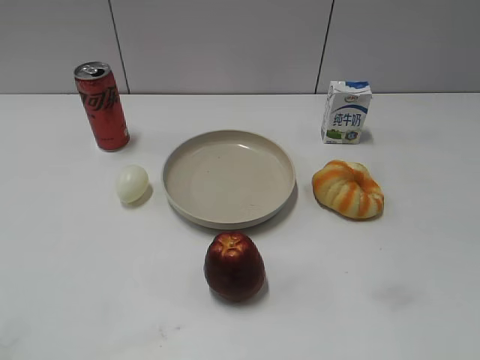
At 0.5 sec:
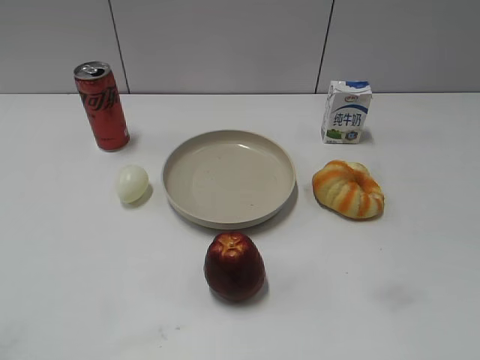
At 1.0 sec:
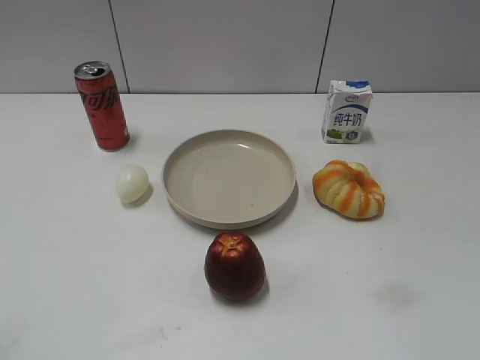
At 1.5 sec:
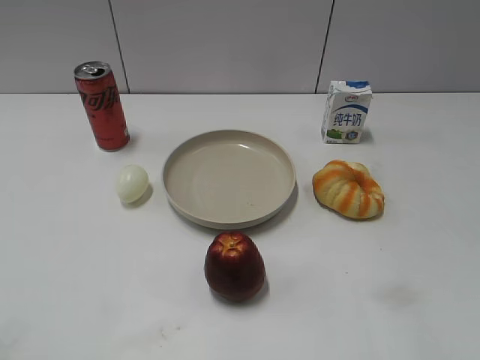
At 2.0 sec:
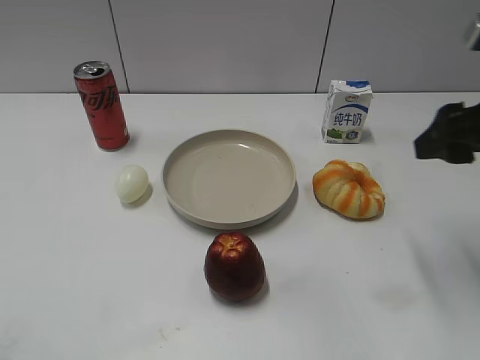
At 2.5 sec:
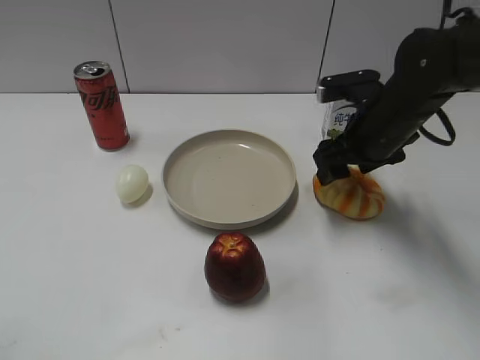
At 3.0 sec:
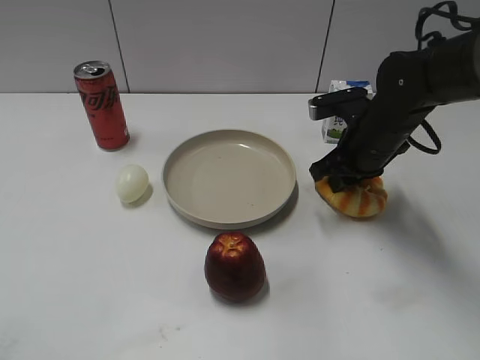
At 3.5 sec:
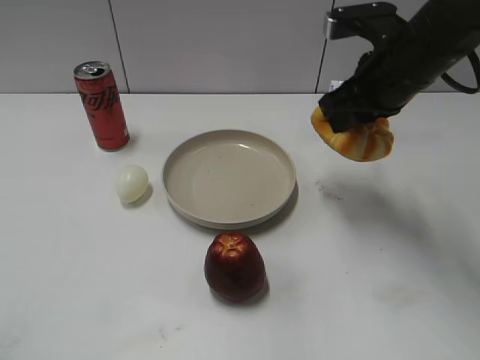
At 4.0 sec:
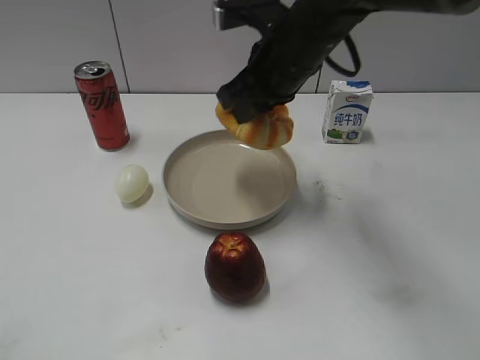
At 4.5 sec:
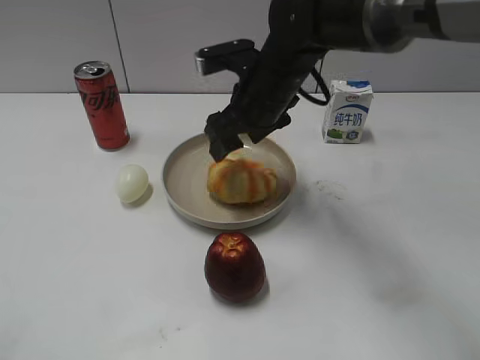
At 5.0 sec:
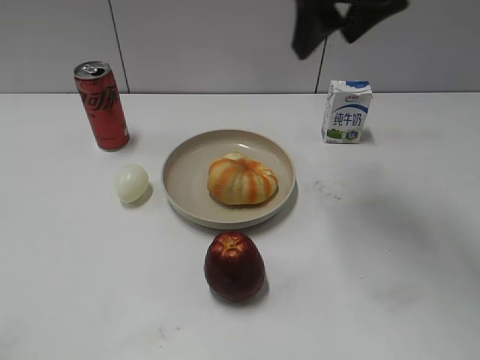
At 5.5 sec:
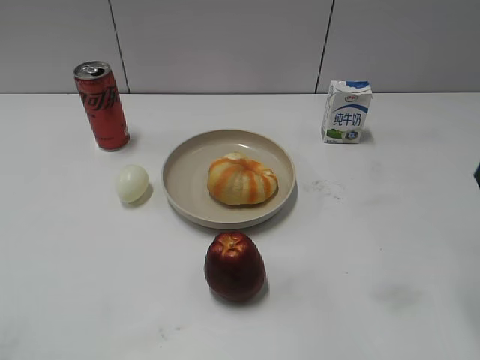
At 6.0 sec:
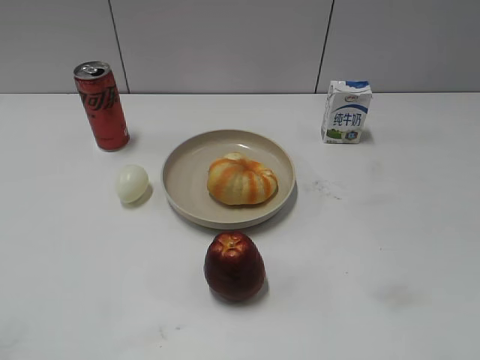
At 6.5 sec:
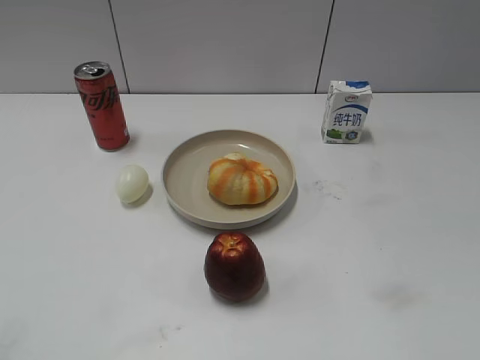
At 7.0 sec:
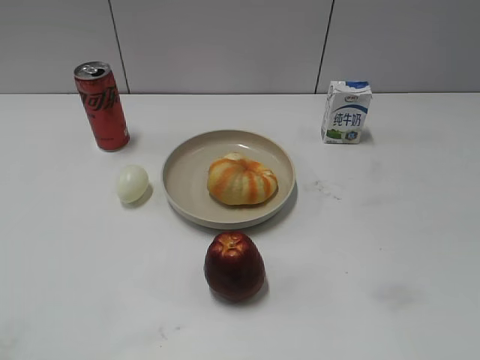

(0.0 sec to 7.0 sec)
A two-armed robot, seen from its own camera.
Step, 1.5 sec - 3.0 sec: Grasp the round bread with right gripper.
Step, 3.5 sec - 4.5 sec: Place the round bread on the plate with right gripper.
2.0 sec - 3.5 sec: The right gripper shifts about 10 cm to the left and forward, moves approximately 10 cm downward and comes back, and closes up.
3.5 sec - 5.0 sec: The right gripper travels upward and to the right by approximately 10 cm, and opens its fingers.
5.0 sec - 7.0 sec: The right gripper is displaced backward by roughly 35 cm.

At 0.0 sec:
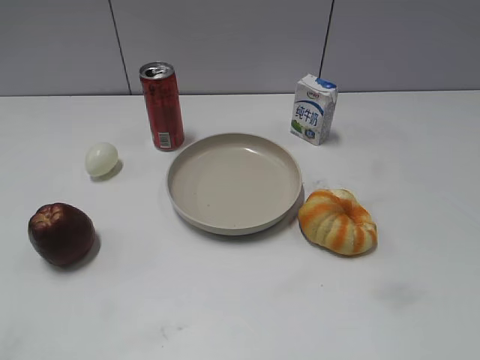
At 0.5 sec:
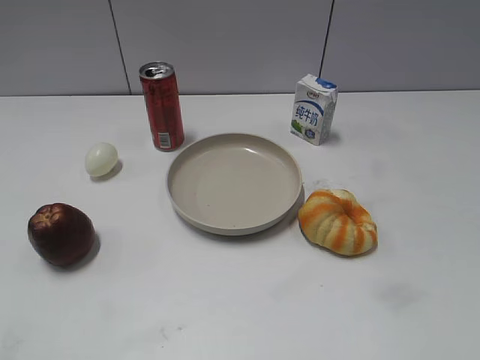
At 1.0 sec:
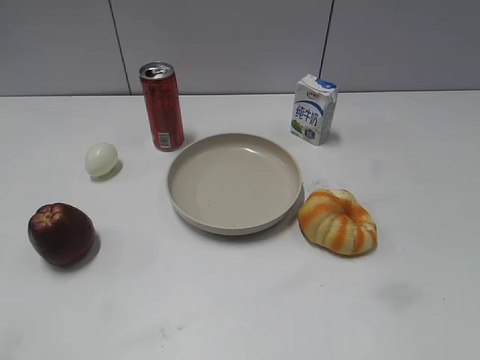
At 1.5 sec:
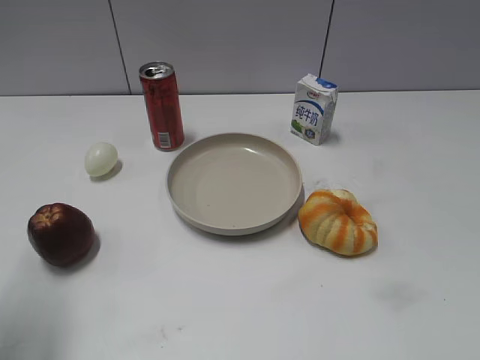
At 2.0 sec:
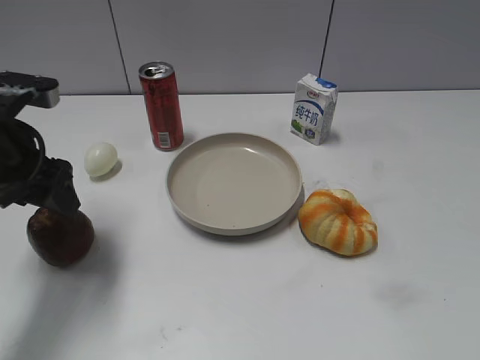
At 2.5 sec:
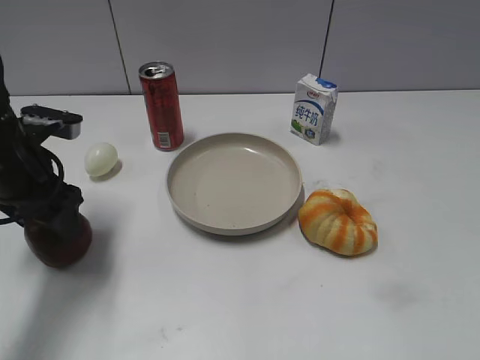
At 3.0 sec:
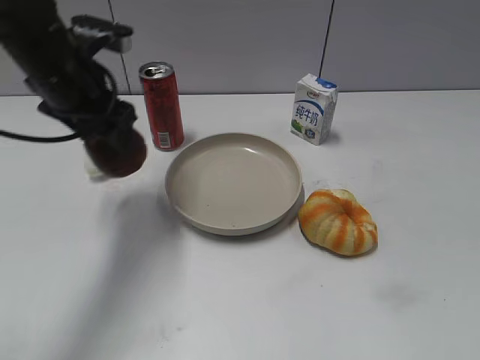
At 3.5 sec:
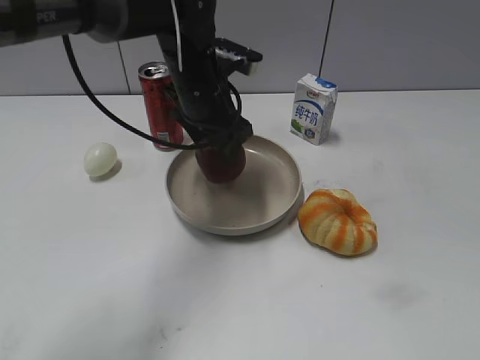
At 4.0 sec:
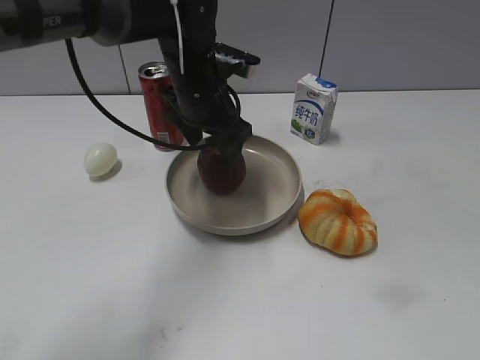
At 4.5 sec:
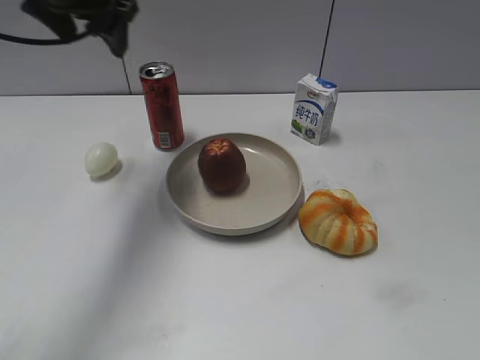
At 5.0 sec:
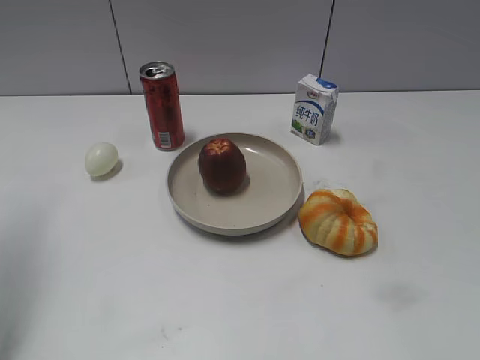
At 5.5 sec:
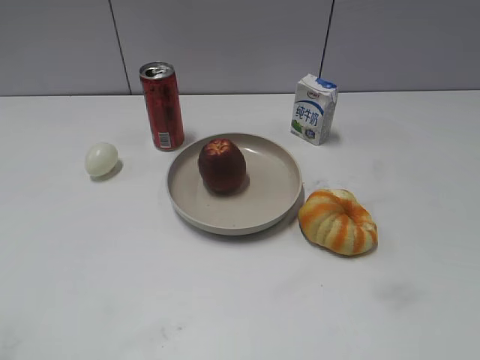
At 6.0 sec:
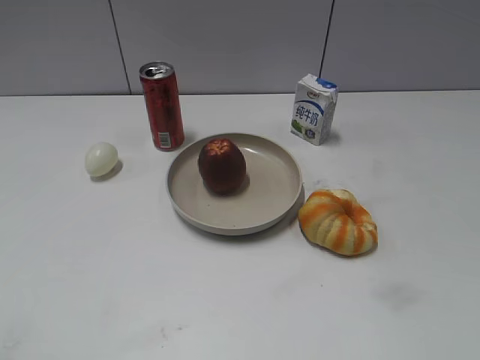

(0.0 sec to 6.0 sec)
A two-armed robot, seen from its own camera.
Step, 2.0 sec - 2.5 sec: Grasp the apple with left gripper.
Step, 3.0 sec - 4.0 sec: Place the apple on the plate with left gripper.
2.0 sec - 4.0 sec: The left gripper travels to the right and forward by roughly 20 cm, and opens up.
4.0 sec - 6.0 sec: The left gripper travels backward and to the left by roughly 50 cm, and closes up.

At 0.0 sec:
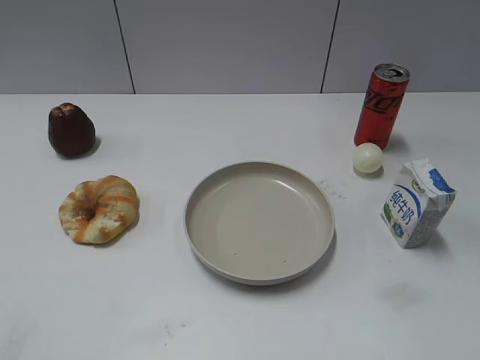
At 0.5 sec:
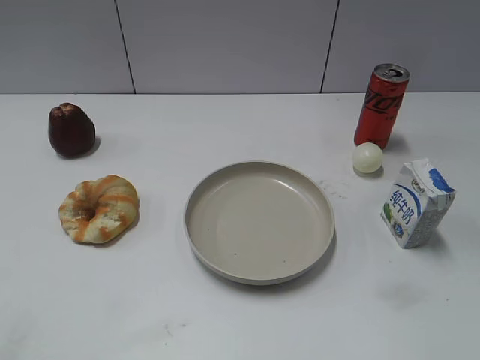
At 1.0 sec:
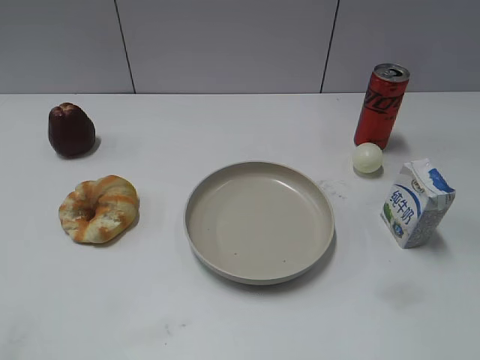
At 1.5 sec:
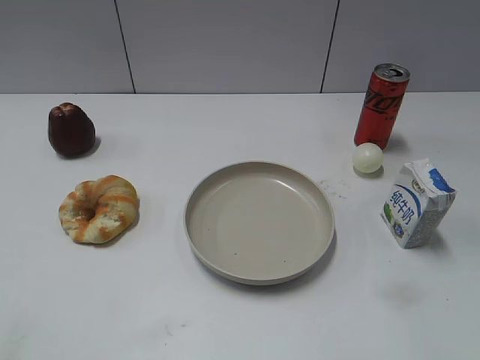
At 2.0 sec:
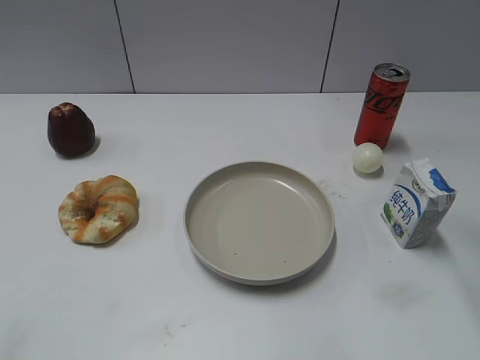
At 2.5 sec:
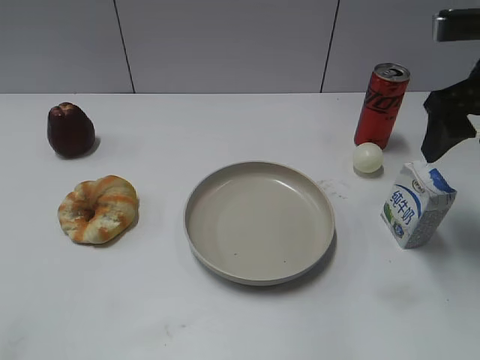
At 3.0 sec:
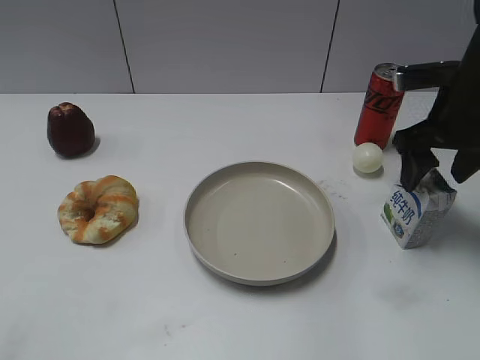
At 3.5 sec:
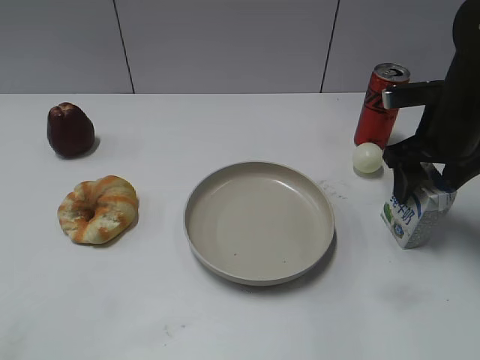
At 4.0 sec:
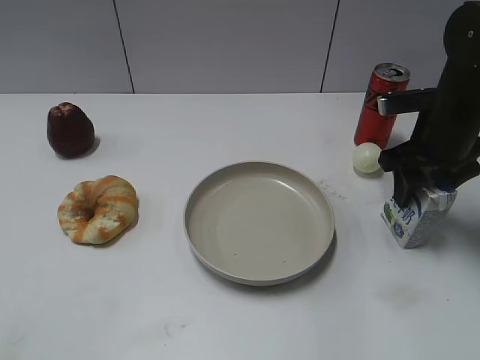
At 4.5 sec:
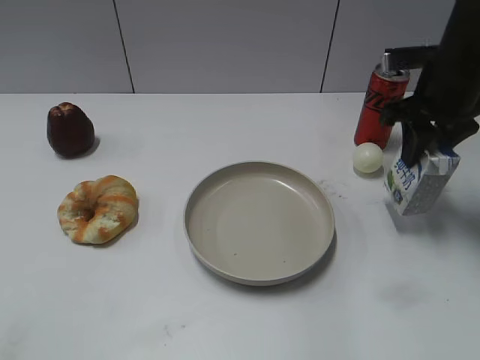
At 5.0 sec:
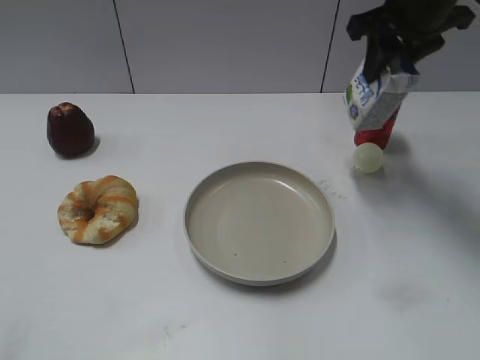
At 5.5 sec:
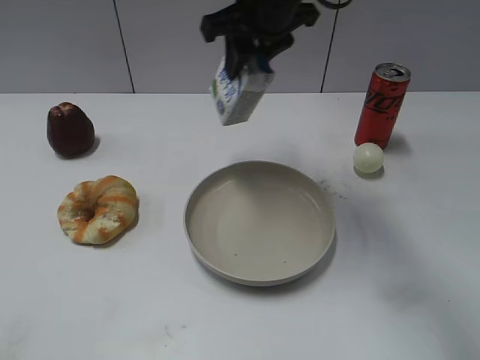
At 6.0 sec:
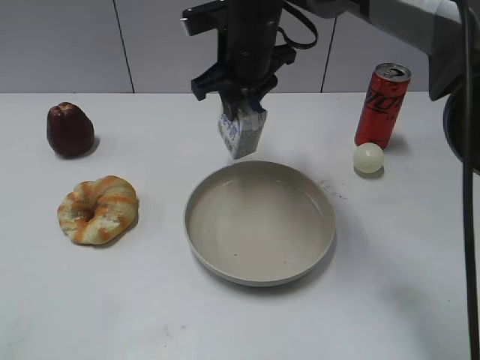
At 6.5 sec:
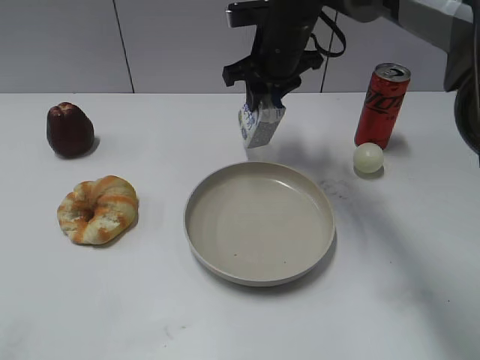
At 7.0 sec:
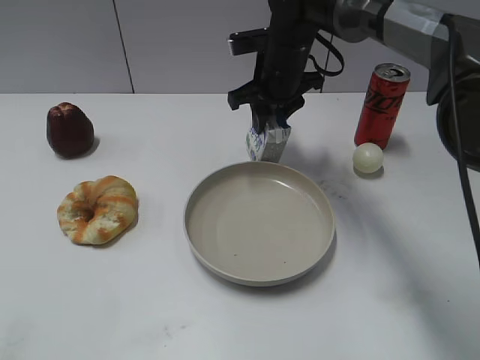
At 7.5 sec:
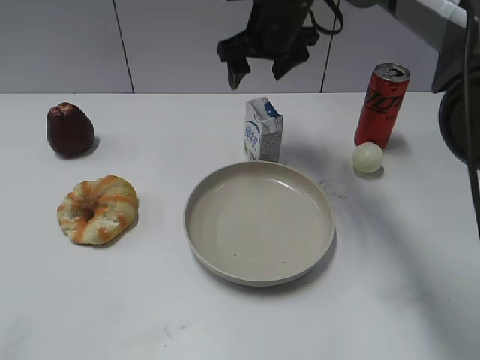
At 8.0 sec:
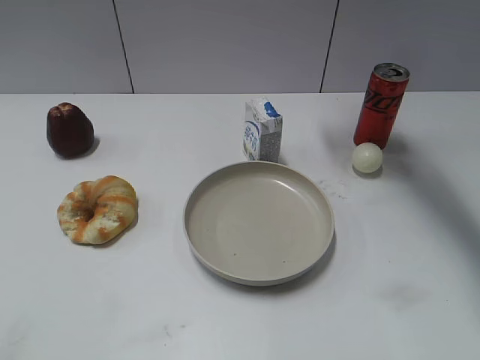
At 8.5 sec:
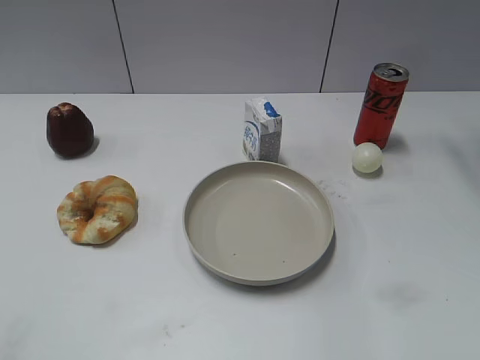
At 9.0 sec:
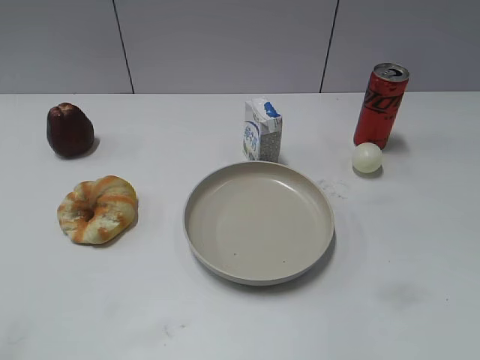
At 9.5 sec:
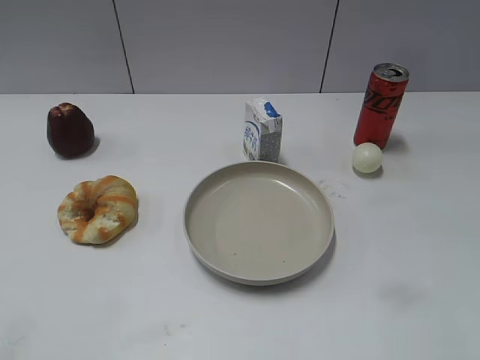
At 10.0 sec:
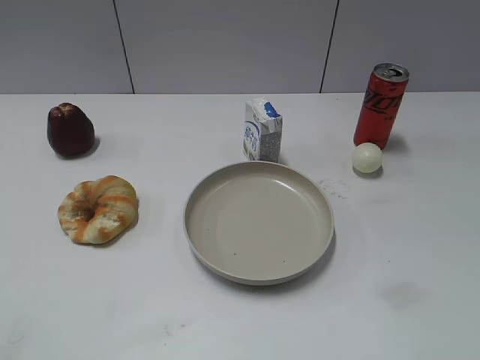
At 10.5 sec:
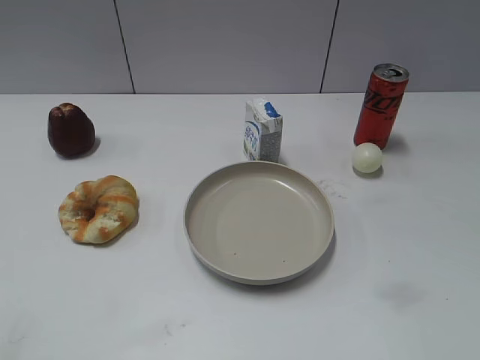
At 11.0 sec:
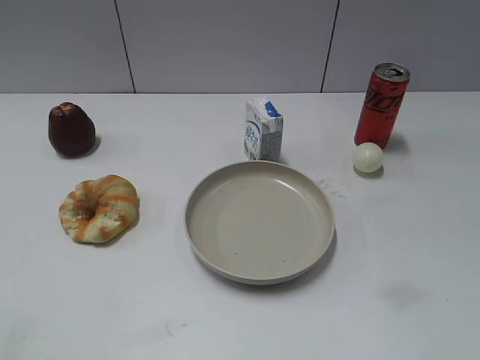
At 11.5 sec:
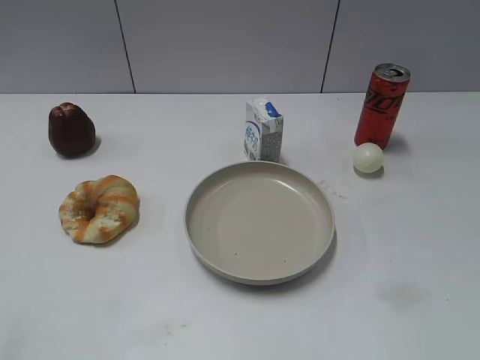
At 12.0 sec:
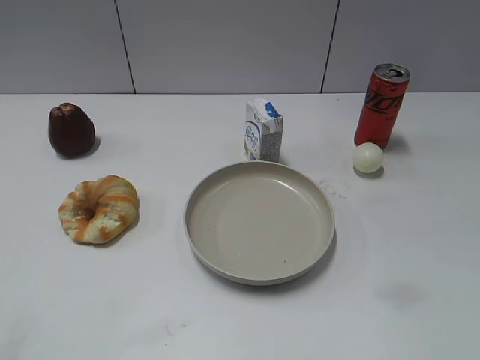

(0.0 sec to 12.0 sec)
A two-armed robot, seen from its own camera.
Step, 1.0 sec - 4.0 sec: Grasp the milk with right gripper.
Step, 4.5 sec - 7.0 sec: Place the milk on the table with right gripper.
2.0 sec - 4.0 sec: The right gripper moves downward and forward, roughly 25 cm, and closes up.
4.0 sec - 6.0 sec: The right gripper heads to the left, covering approximately 20 cm, and closes up.
6.0 sec - 8.0 sec: The right gripper is displaced to the right, upward and forward by approximately 20 cm, and opens up.
8.0 sec - 10.0 sec: The right gripper moves backward, roughly 40 cm.
